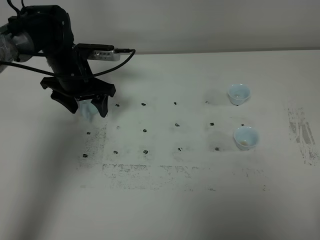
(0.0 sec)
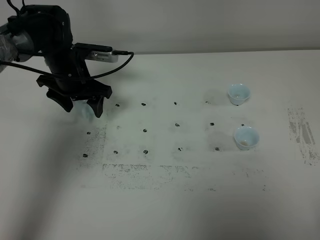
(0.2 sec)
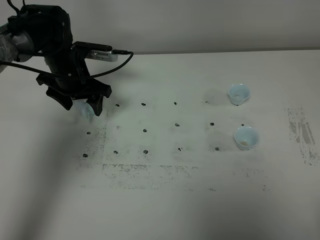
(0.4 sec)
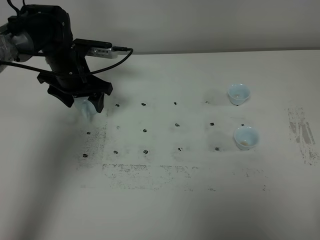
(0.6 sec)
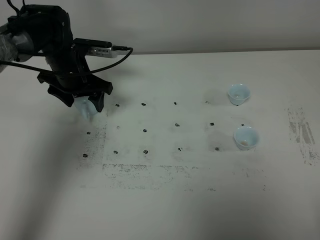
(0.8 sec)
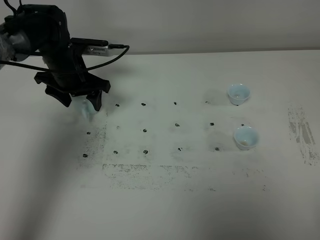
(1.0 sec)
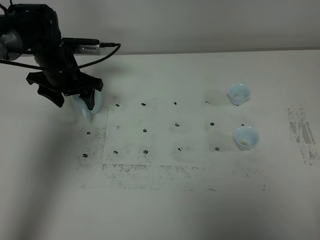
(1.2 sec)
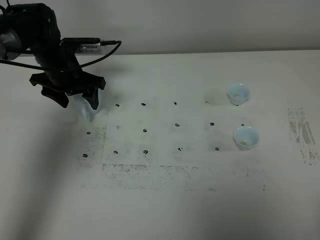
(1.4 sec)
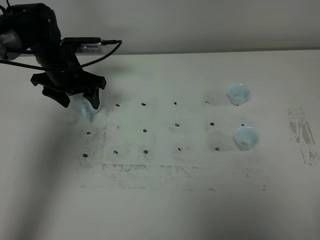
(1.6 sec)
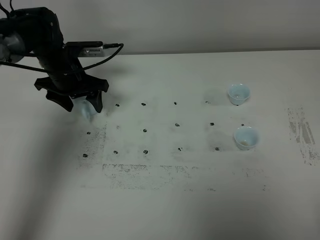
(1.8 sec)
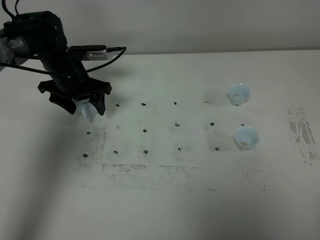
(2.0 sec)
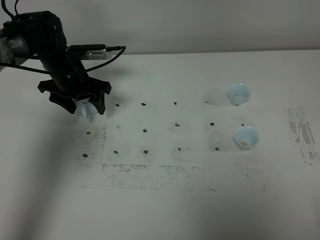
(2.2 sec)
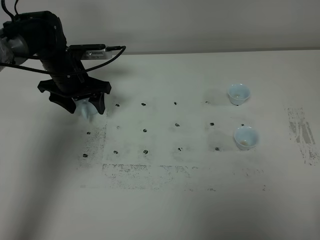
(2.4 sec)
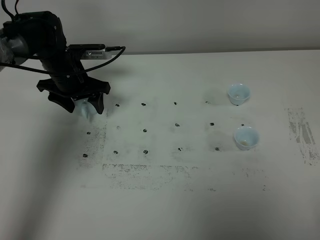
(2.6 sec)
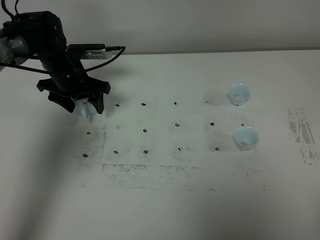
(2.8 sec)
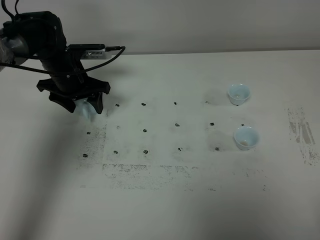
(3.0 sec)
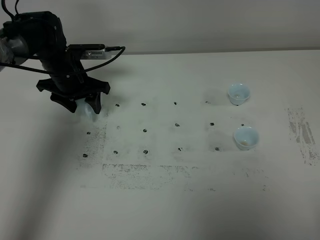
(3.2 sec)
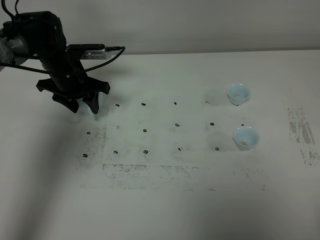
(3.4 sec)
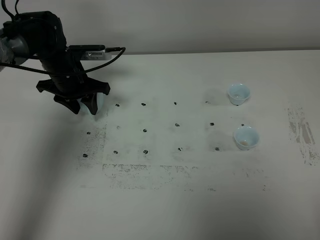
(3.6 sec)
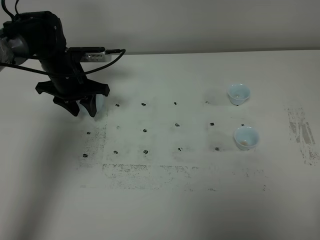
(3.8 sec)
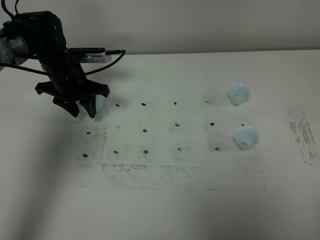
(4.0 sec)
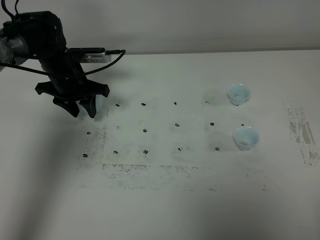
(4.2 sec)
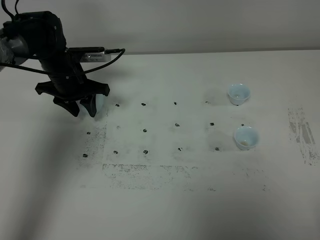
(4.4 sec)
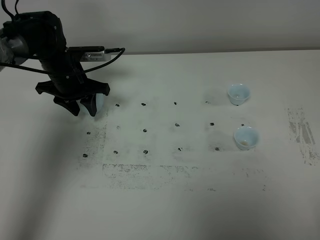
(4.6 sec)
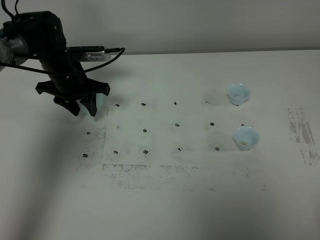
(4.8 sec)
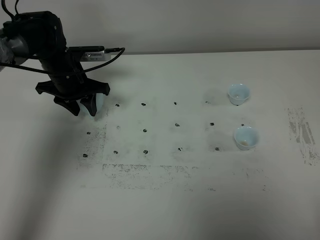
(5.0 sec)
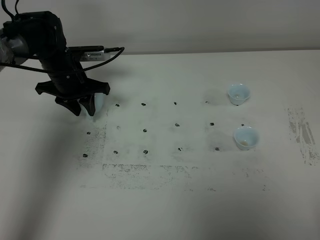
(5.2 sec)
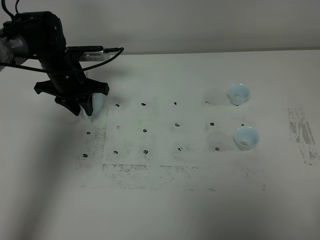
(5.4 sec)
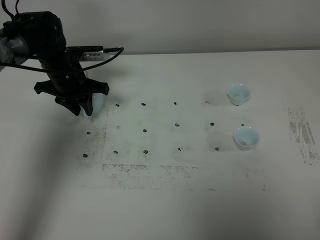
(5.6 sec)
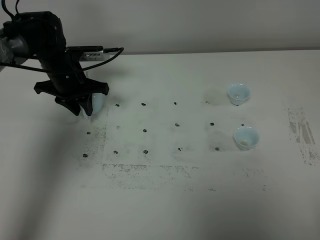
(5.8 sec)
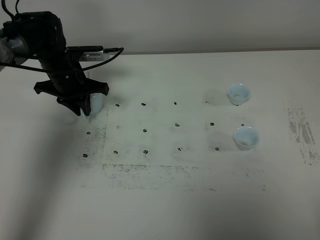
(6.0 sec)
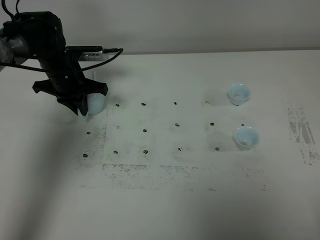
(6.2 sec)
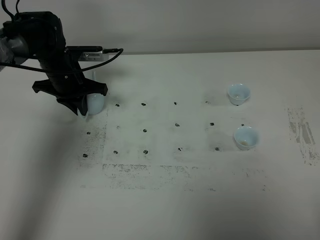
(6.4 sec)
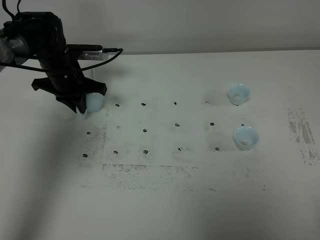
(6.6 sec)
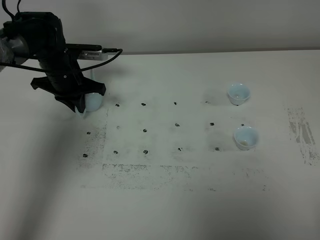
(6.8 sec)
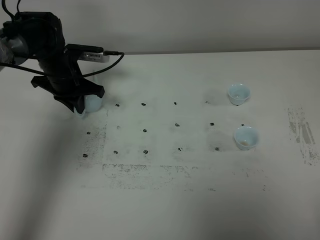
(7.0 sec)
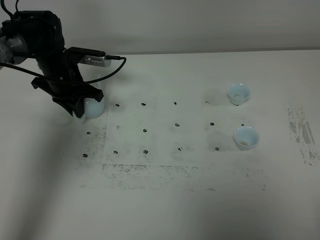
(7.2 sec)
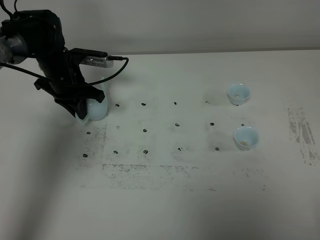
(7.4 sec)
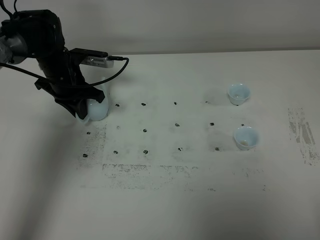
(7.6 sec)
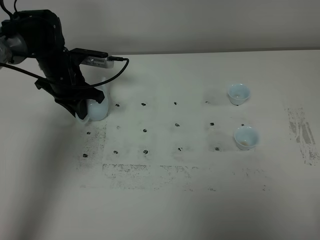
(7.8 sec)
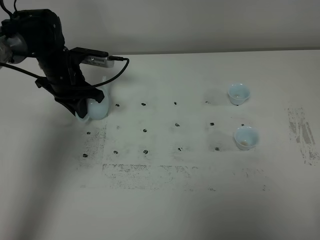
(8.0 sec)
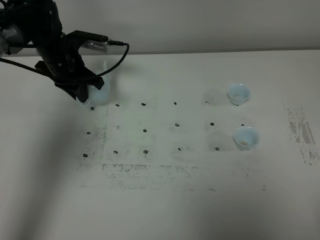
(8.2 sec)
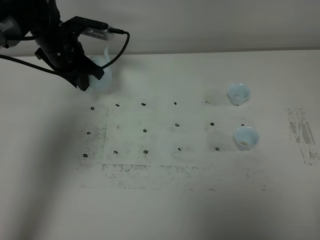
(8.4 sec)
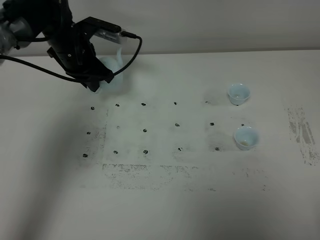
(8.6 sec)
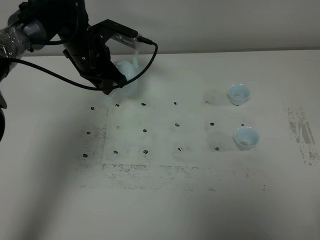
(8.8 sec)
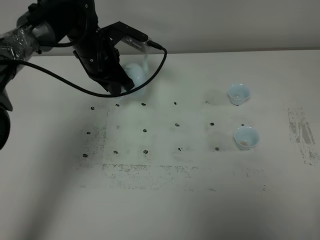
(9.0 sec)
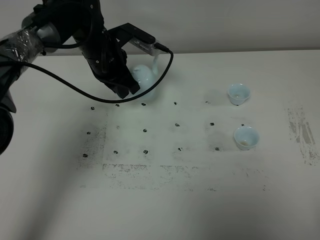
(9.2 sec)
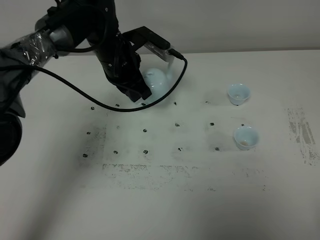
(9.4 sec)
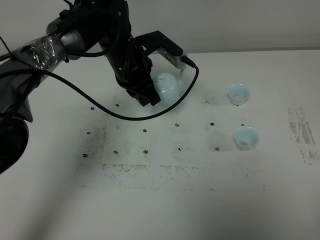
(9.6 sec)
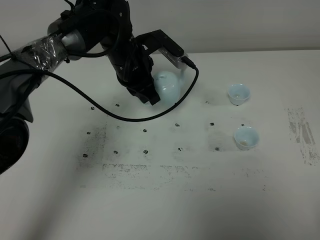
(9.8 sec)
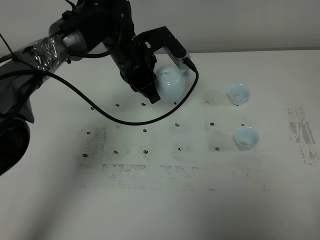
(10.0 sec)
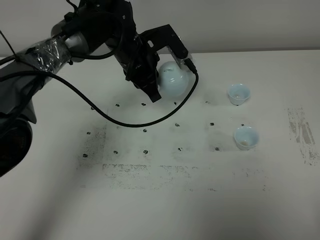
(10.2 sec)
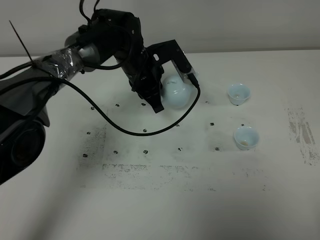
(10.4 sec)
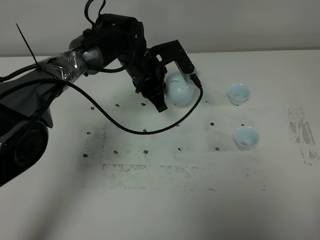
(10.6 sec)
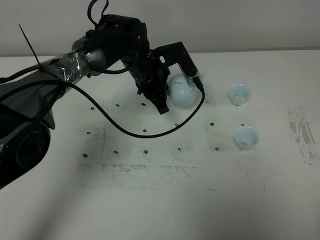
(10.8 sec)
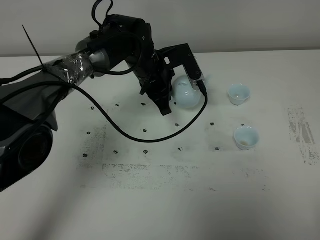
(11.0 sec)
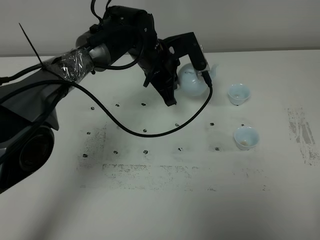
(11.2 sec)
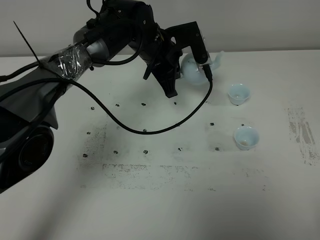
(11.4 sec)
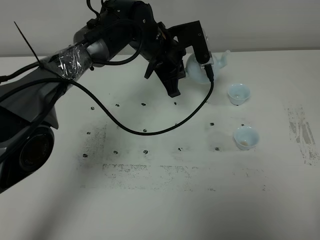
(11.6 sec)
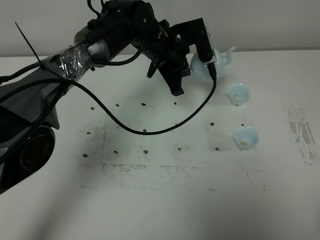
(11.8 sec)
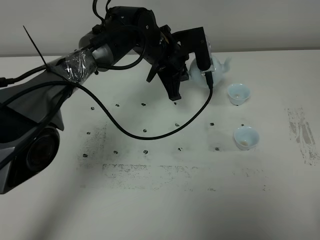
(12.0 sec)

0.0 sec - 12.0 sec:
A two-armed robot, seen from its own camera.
Task of the whole recording: grasp the blue porcelain teapot and pour the tea into the two blue porcelain teacups one by one, put the blue porcelain teapot back in its original place.
Step, 0.0 sec - 8.0 sec: Pick up the teapot with the left gripper.
0.0 sec - 3.0 sec: The grippers make only small movements.
3.0 sec - 4.4 sec: Neither gripper changes place.
4.4 sec - 6.0 sec: The left gripper closes its fingers.
6.0 sec - 7.6 sec: The grippers make only small movements.
7.6 sec - 9.0 sec: The left gripper goes roughly 10 cm to the right and upward.
9.0 sec - 10.4 sec: The left gripper heads to the right, covering about 10 cm.

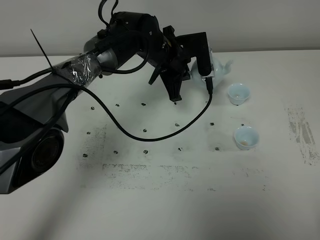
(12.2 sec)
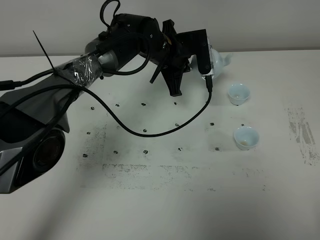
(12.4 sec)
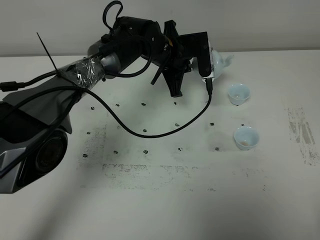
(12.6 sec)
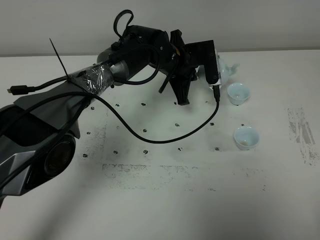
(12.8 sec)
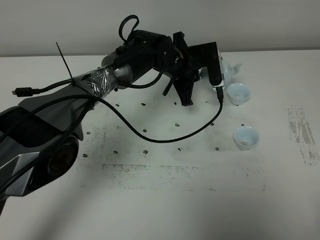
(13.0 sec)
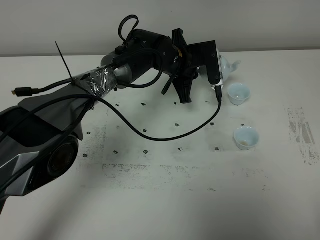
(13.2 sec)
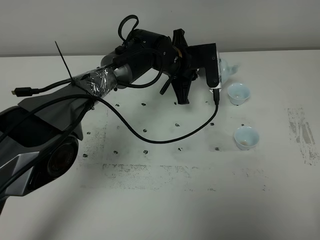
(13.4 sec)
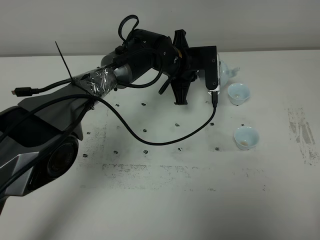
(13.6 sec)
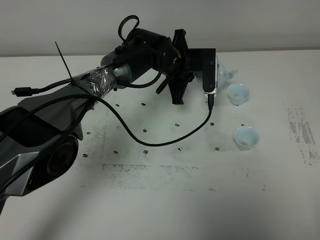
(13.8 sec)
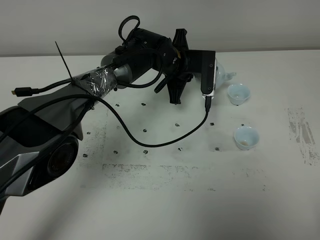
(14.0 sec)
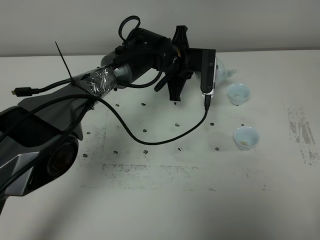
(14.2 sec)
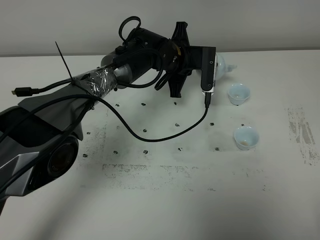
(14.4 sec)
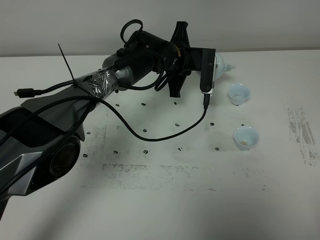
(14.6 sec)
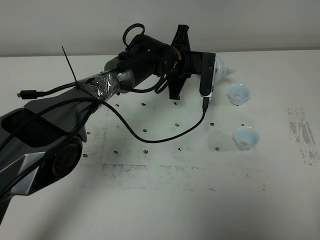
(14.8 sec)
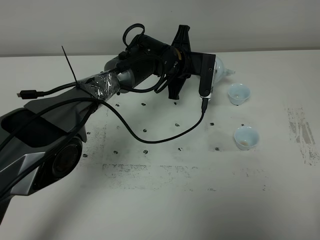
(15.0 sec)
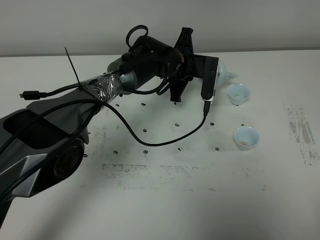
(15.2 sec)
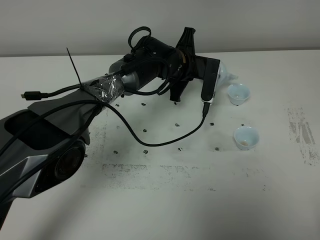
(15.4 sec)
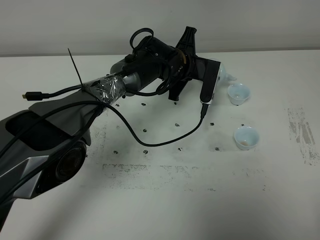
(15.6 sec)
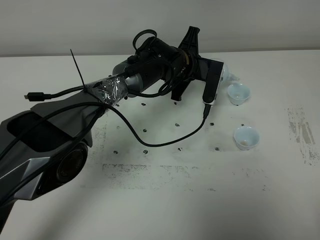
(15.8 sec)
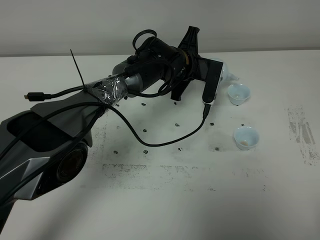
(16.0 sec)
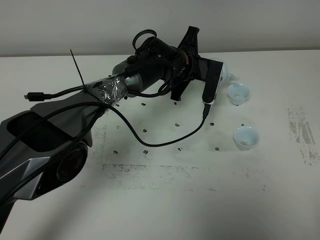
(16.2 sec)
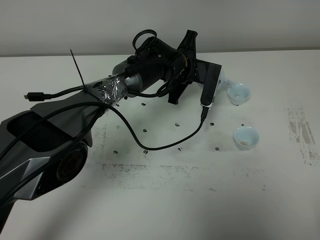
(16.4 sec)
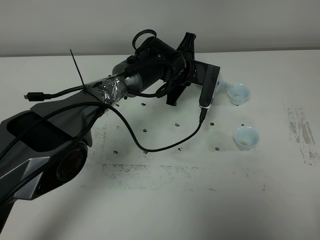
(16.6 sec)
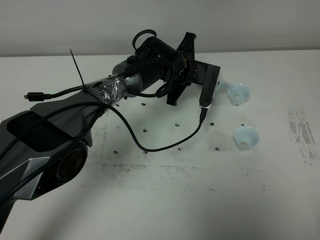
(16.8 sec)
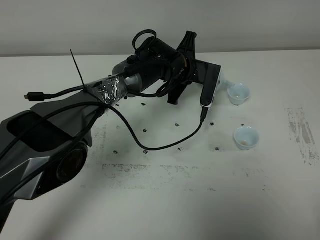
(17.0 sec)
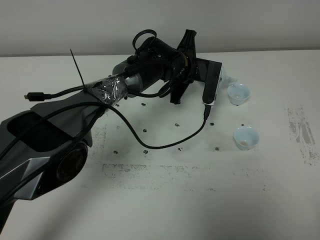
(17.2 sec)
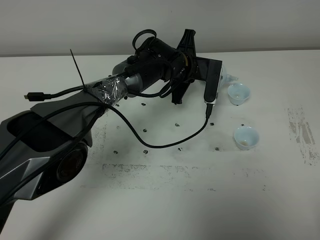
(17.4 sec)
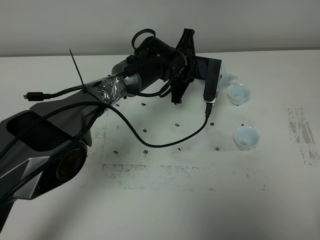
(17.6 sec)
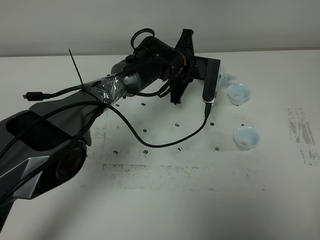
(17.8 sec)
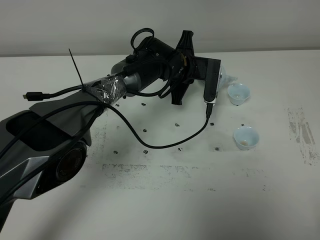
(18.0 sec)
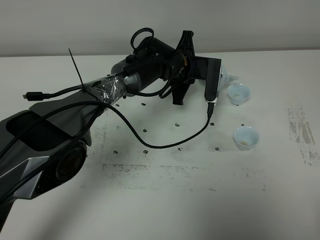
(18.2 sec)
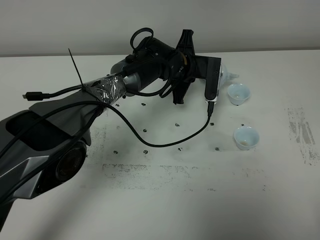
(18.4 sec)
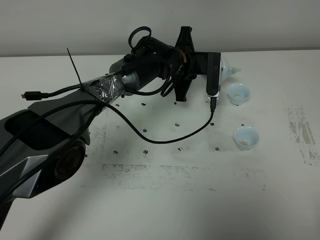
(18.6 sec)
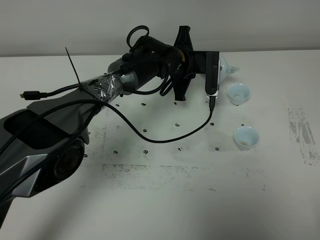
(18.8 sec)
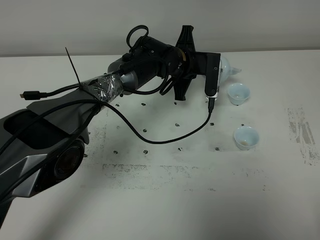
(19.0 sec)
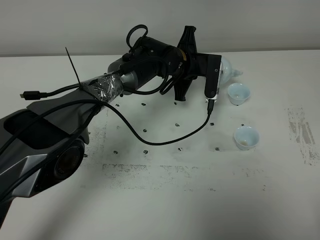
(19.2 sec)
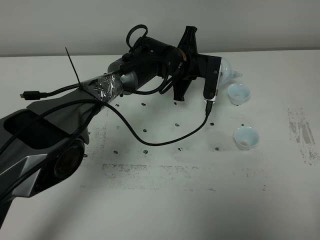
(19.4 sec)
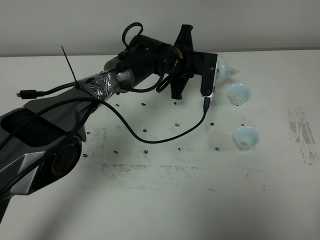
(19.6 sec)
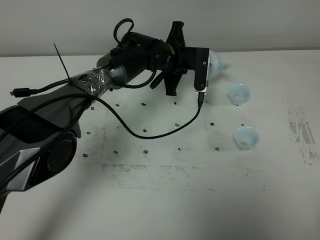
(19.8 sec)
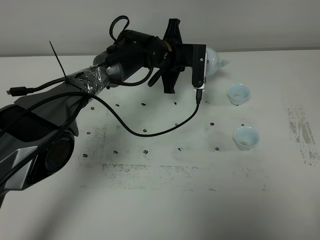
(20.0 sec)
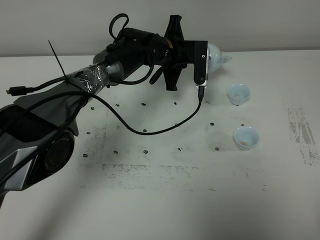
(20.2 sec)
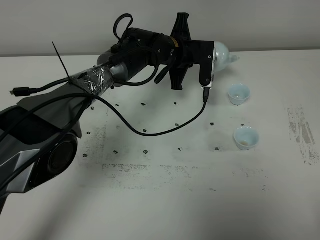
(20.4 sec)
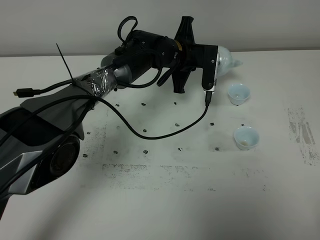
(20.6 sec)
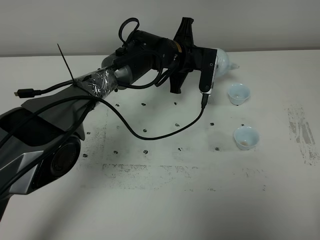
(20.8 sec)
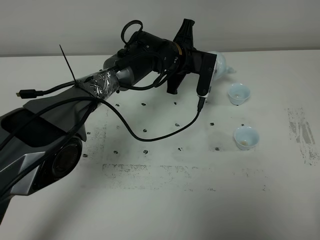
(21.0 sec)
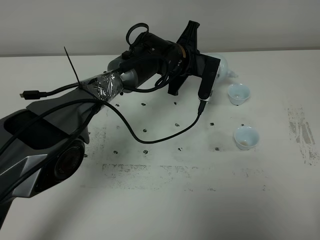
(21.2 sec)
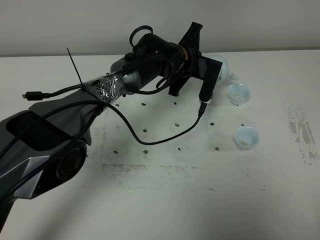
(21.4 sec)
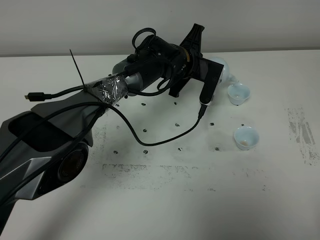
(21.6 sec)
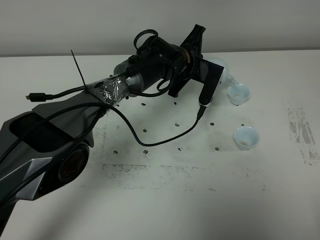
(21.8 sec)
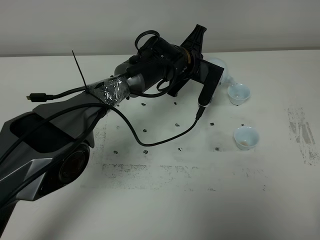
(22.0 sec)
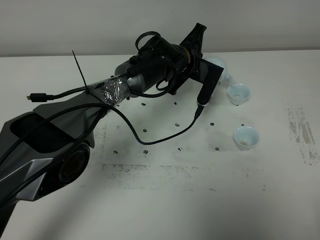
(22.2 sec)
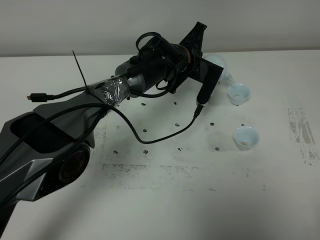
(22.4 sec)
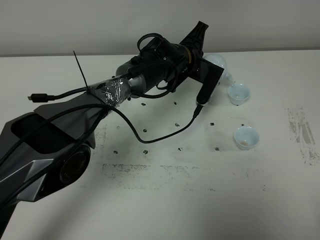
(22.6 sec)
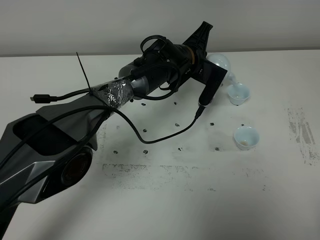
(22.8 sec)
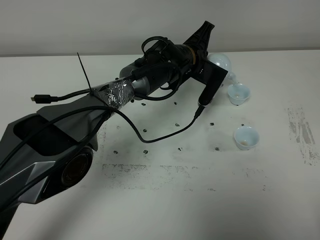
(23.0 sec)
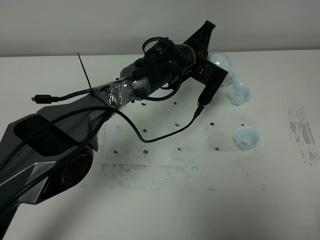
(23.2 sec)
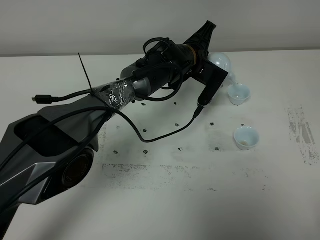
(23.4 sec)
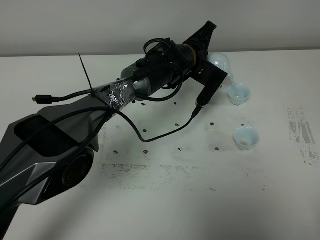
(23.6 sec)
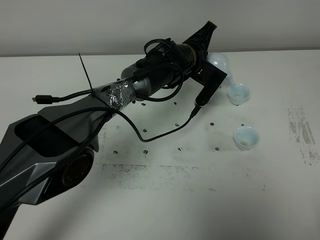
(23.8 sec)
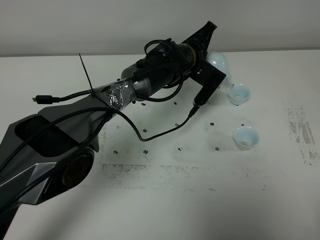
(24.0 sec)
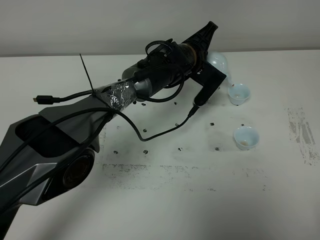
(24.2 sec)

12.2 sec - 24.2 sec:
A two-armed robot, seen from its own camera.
Task of the whole recording: grasp the blue porcelain teapot and pour the tea into the two blue porcelain teacups one by one, put the blue porcelain teapot back in its original place.
12.2 sec - 13.8 sec: The grippers move only a little.
13.8 sec - 19.8 sec: The grippers stay close to where they were, moving slightly.
19.8 sec - 21.2 sec: There are only small adjustments of the grippers.
21.2 sec - 22.6 sec: There are only small adjustments of the grippers.
22.6 sec - 24.2 sec: The grippers make only small movements.
